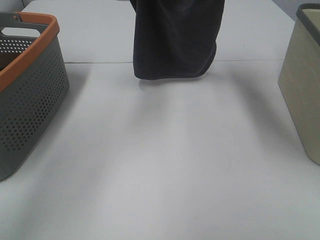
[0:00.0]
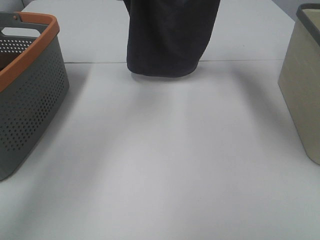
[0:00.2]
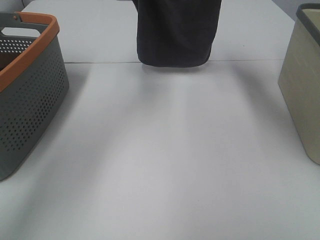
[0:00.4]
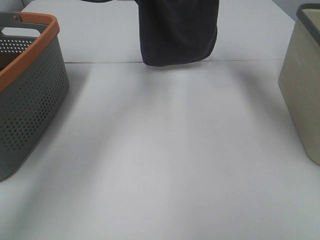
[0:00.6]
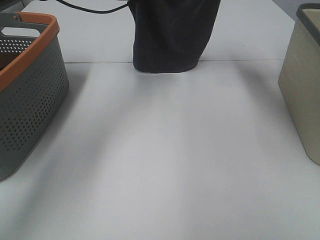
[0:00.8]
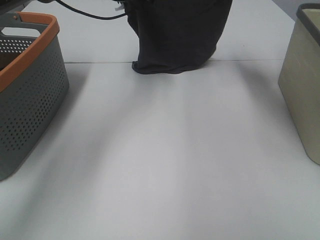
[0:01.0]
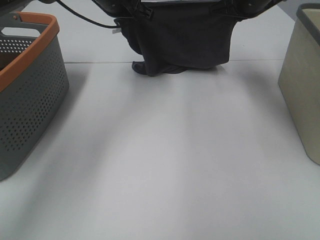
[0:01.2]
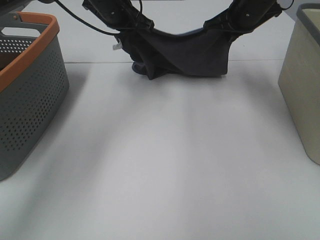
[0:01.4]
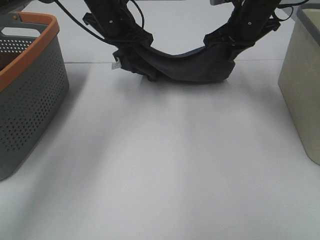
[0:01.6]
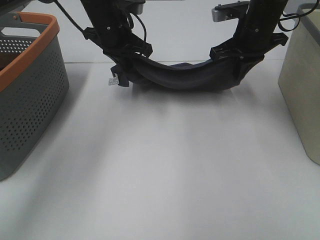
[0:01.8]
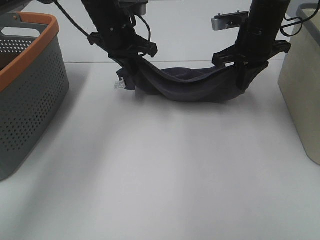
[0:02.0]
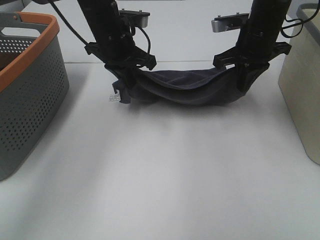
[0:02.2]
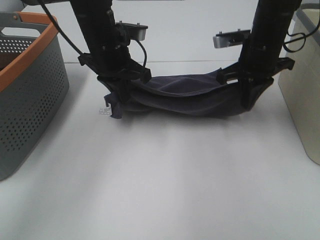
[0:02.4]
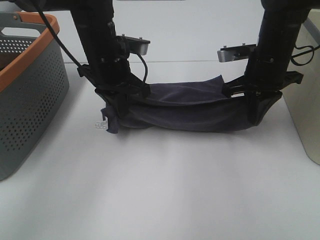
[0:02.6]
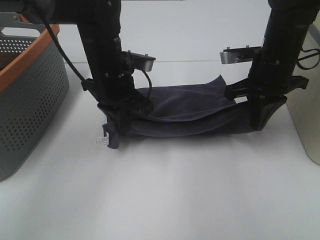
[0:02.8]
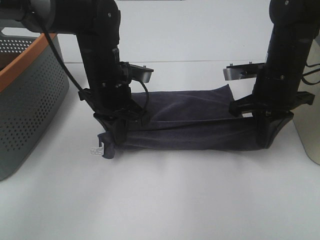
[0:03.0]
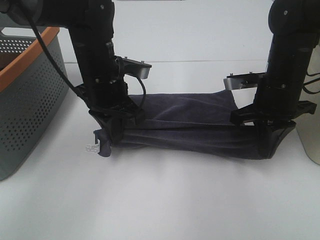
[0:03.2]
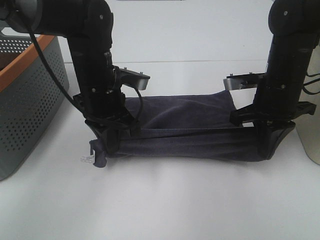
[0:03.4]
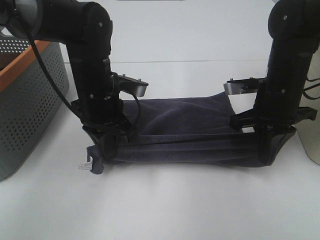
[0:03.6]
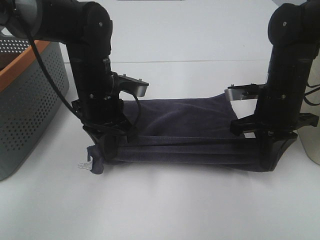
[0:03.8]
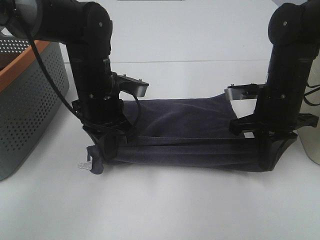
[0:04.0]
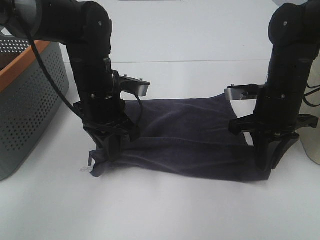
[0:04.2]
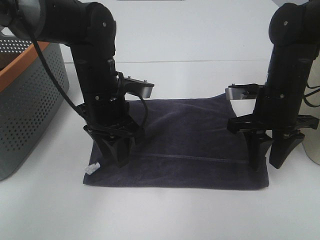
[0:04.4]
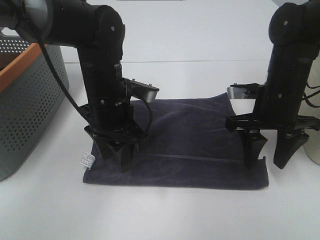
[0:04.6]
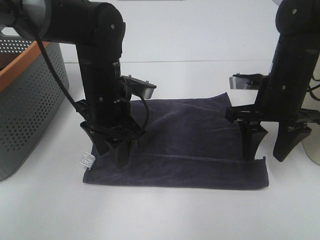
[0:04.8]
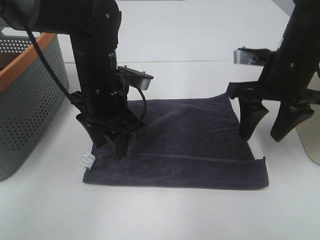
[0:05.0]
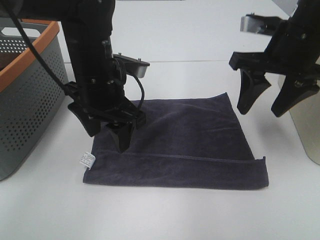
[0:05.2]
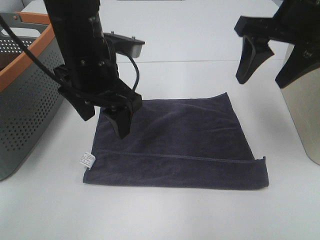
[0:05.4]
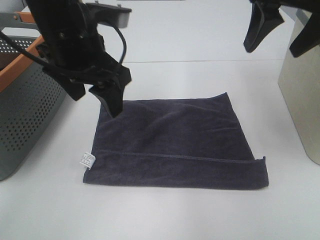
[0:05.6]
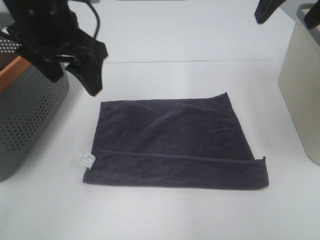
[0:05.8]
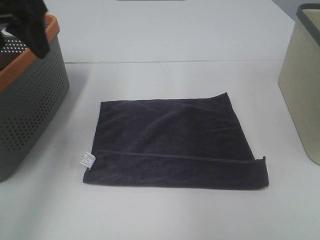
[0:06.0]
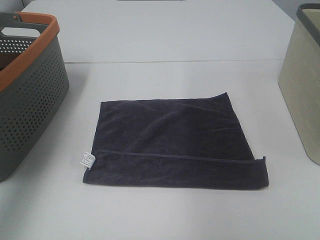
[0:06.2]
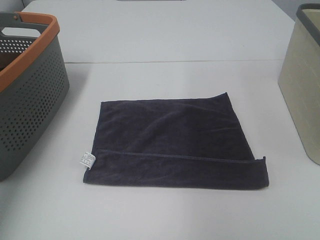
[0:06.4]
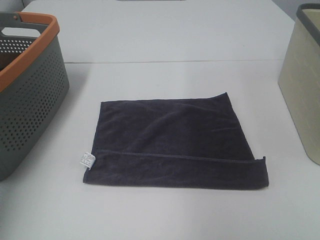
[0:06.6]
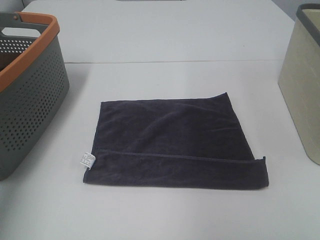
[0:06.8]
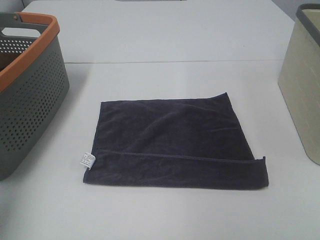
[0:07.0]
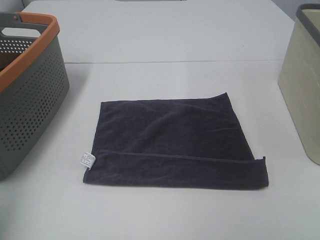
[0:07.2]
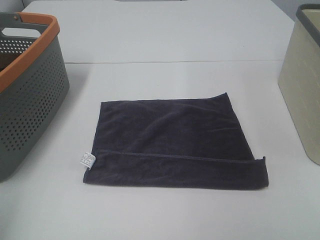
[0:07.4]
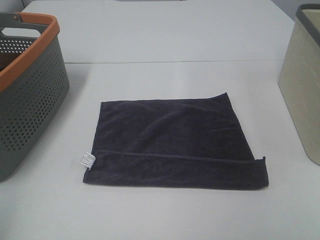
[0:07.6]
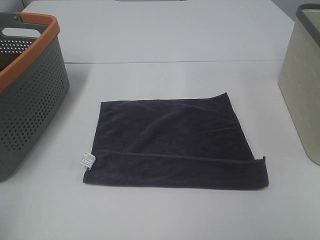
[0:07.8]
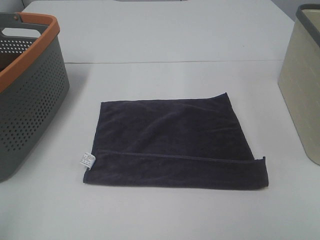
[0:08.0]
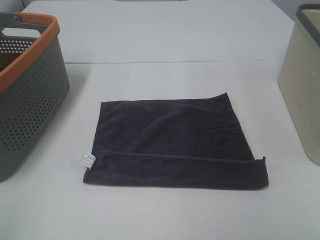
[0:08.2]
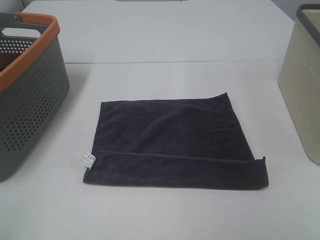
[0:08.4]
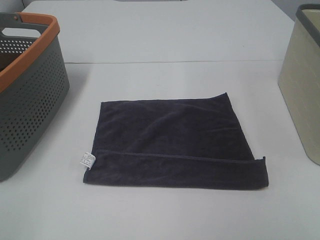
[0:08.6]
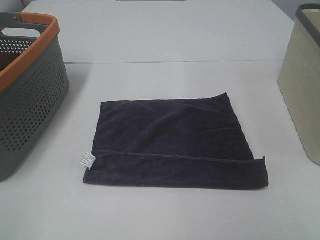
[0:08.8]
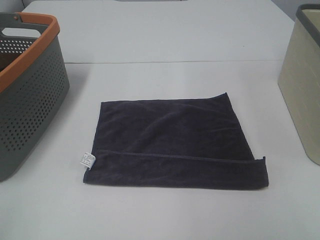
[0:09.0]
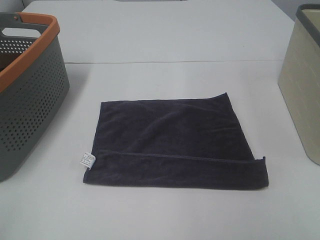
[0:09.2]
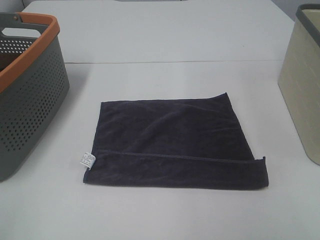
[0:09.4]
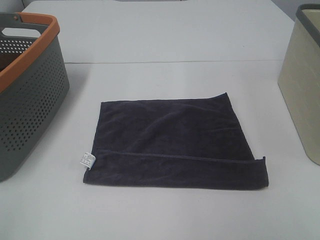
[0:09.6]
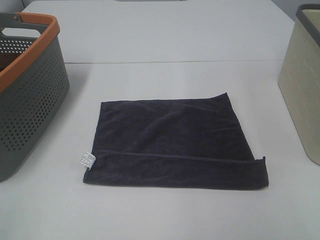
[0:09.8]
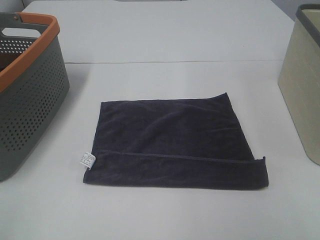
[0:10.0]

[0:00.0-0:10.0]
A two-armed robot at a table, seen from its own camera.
Task of the whole recording: Remove the towel and place it.
0:00.0 to 0:01.4: The right gripper goes about 10 cm downward and forward; the left gripper travels downward by approximately 10 cm.
0:01.4 to 0:02.8: The left gripper heads backward and downward, covering about 15 cm; the right gripper moves backward, some 10 cm.
0:02.8 to 0:04.2: The right gripper shifts by approximately 5 cm.
0:04.2 to 0:05.8: The right gripper is displaced upward by approximately 25 cm, and opens up. Meanwhile the left gripper goes some 15 cm upward, and opens its fingers.
0:05.8 to 0:07.2: The left gripper moves backward and to the left, roughly 30 cm, while the right gripper moves backward and to the right, about 25 cm.
0:07.2 to 0:08.6: The left gripper moves backward and downward, approximately 15 cm.

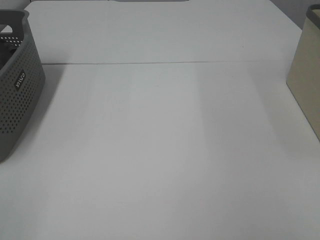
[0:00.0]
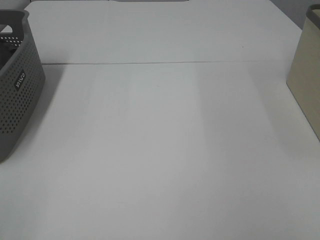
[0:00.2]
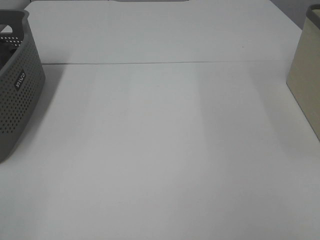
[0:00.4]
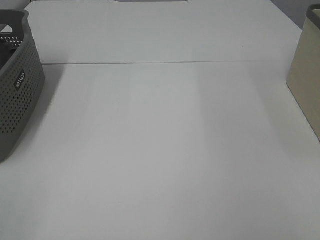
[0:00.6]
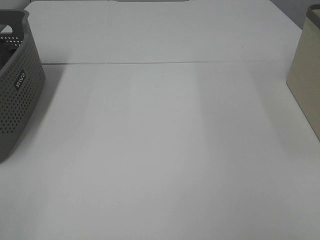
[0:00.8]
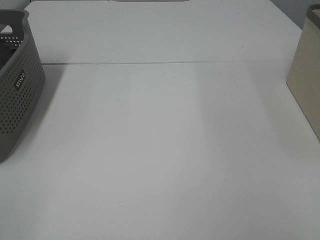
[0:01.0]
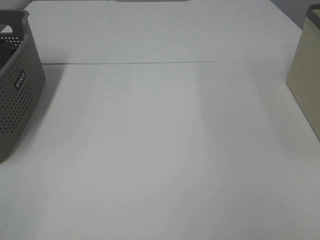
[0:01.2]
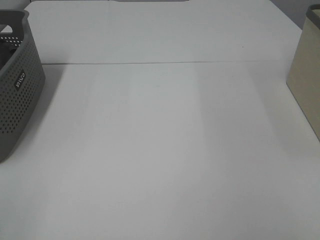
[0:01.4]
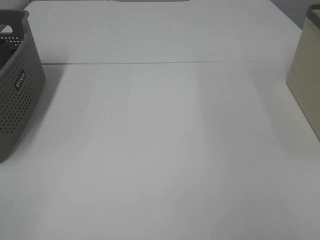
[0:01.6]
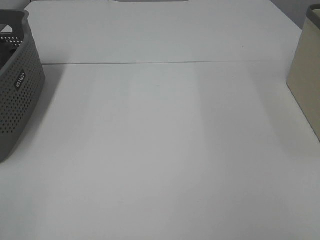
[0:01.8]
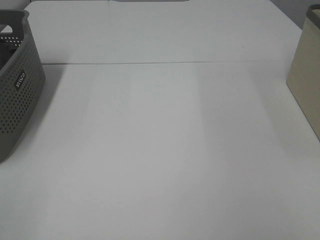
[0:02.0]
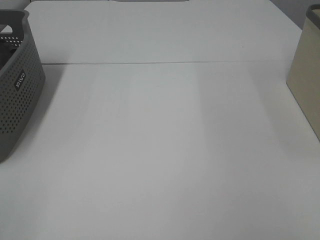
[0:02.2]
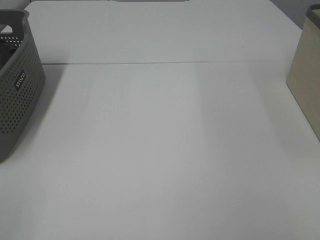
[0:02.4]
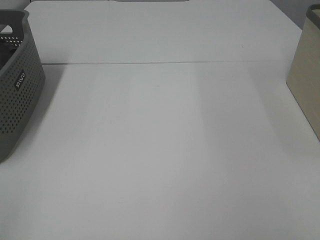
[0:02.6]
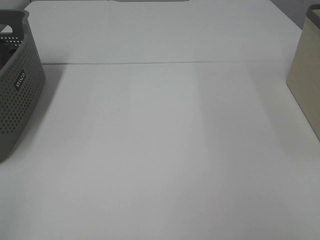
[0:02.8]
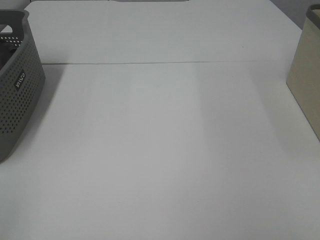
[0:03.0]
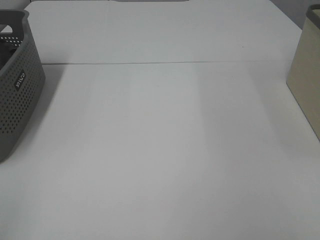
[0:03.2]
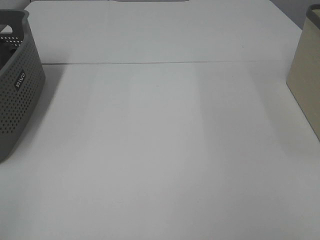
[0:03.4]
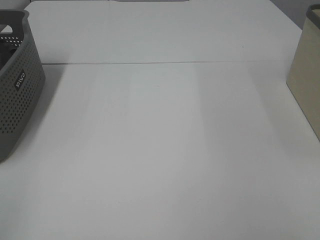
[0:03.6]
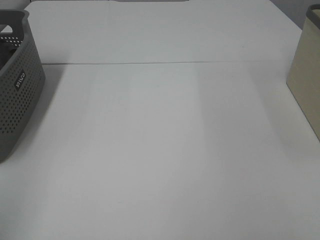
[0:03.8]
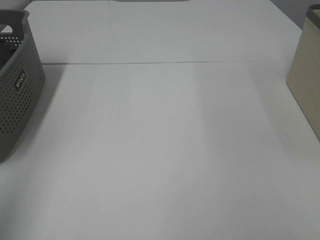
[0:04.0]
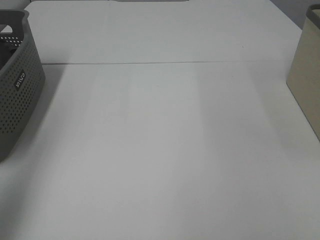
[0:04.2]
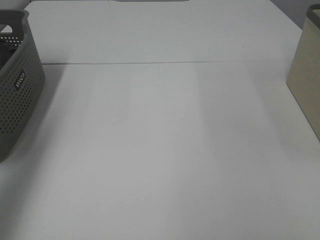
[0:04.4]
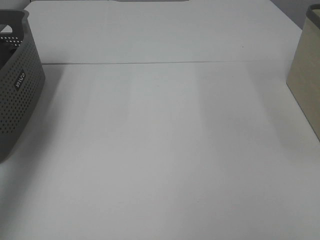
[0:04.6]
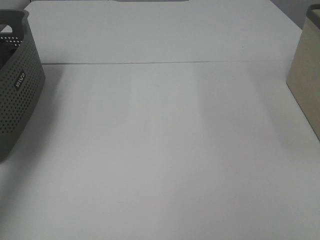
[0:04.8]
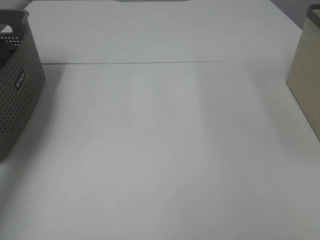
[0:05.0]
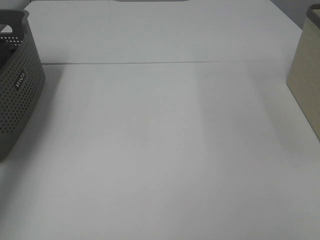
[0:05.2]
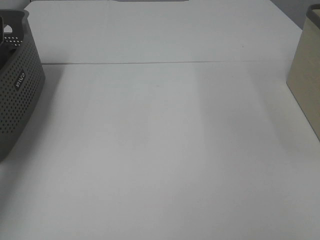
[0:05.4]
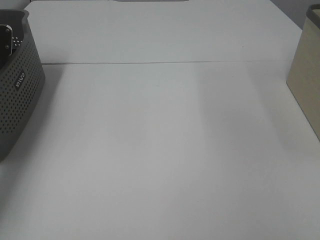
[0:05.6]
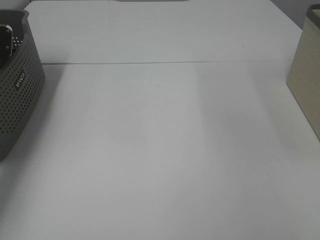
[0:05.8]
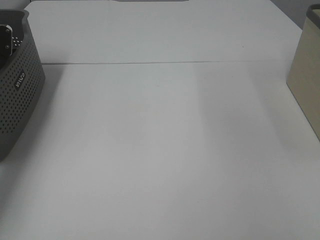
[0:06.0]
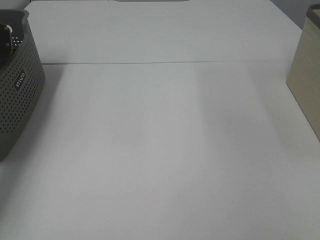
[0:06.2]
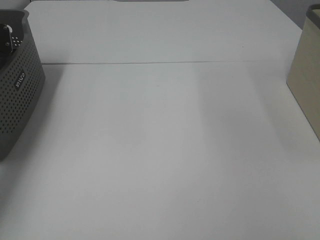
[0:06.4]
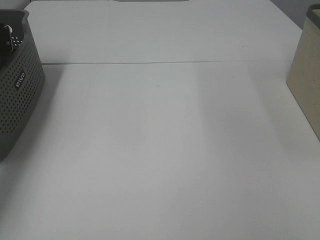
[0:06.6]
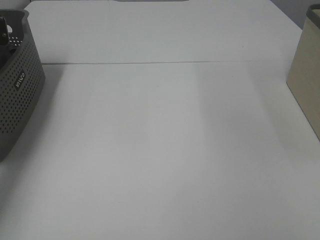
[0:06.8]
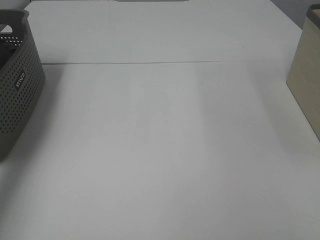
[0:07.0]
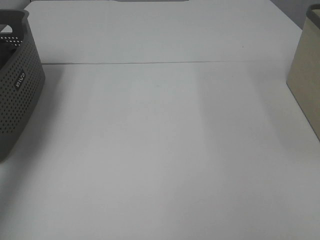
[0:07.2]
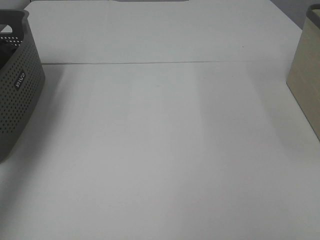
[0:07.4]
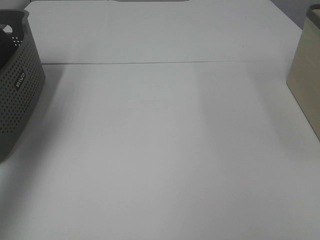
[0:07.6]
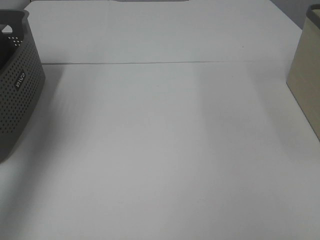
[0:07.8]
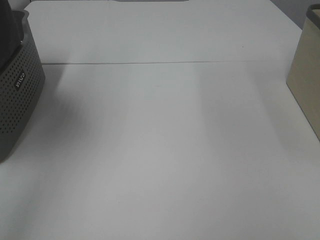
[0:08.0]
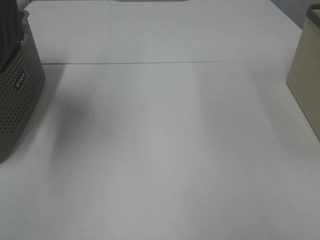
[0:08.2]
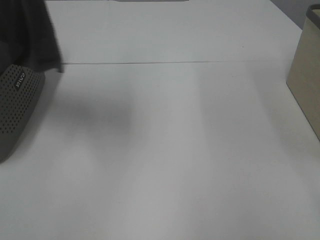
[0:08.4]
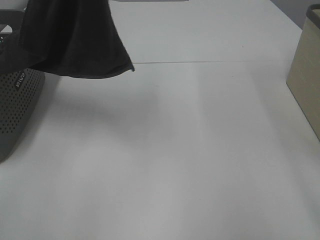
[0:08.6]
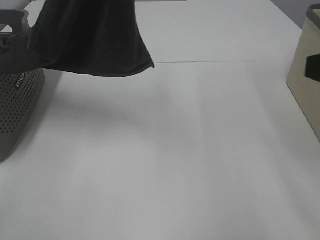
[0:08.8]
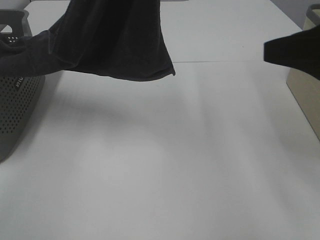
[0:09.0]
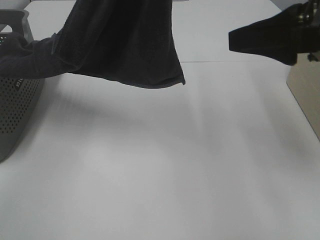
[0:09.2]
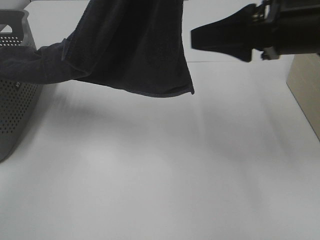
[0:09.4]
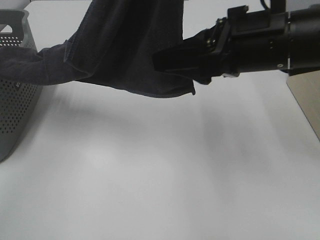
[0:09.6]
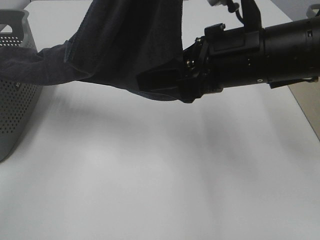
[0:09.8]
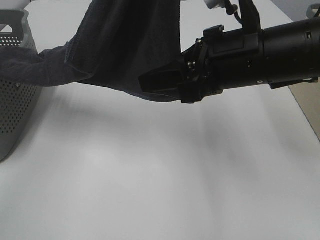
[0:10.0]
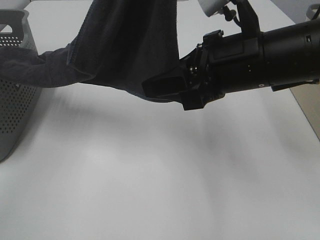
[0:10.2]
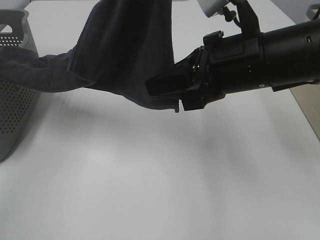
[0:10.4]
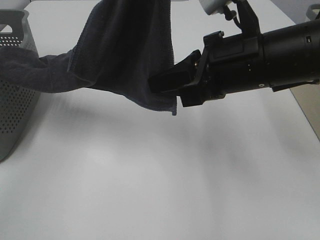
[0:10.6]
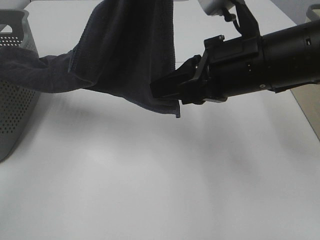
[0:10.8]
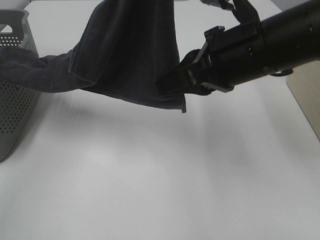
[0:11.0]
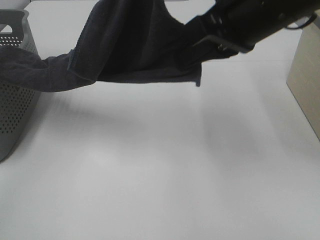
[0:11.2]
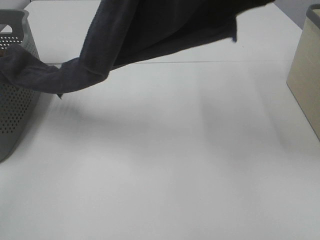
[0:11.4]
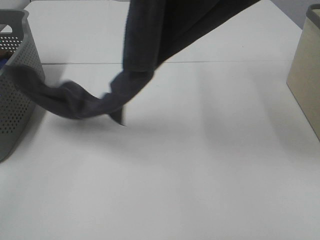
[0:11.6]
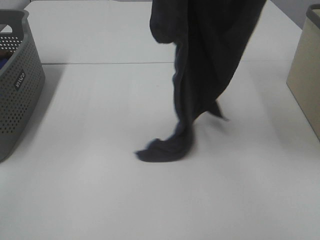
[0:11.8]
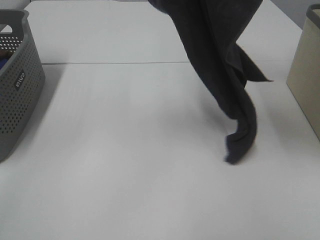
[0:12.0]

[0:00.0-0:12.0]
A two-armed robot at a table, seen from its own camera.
Task of the whole recording: Remove the towel and place it.
Step, 0:07.6 to 0:12.0: Right hand: grab a corner of the grey towel and straighten it.
0:00.0 to 0:01.6: The two grippers keep their place.
0:03.0 to 0:04.4: The left gripper shifts approximately 25 cm forward and upward.
0:04.4 to 0:06.0: The left gripper moves forward and downward, about 30 cm, and closes up.
0:06.0 to 0:07.6: The left gripper shifts some 25 cm upward and backward.
0:07.6 to 0:09.0: The left gripper shifts some 25 cm to the right. Meanwhile the right gripper moves forward, about 20 cm.
0:09.0 to 0:10.4: The right gripper goes approximately 15 cm to the left, downward and forward, and closes its fingers.
0:10.4 to 0:12.0: The right gripper moves upward, about 25 cm; the left gripper changes place by about 5 cm.
